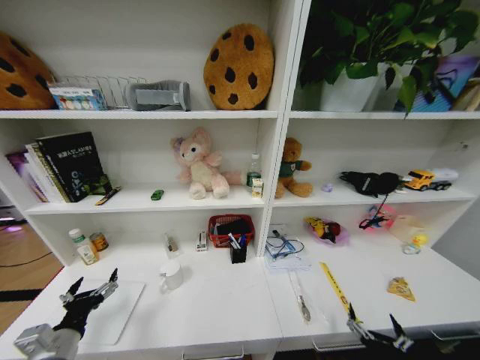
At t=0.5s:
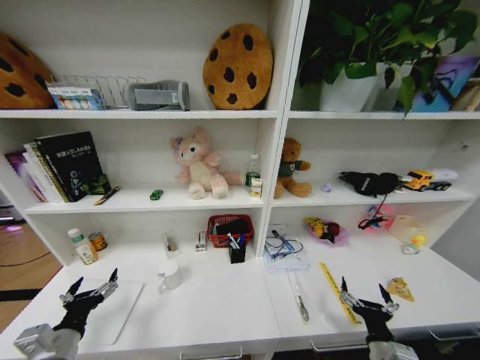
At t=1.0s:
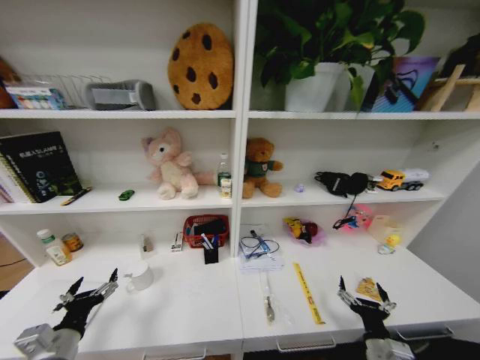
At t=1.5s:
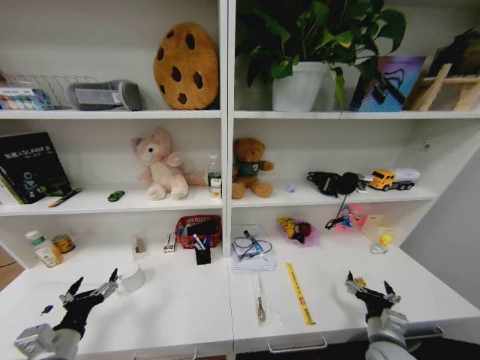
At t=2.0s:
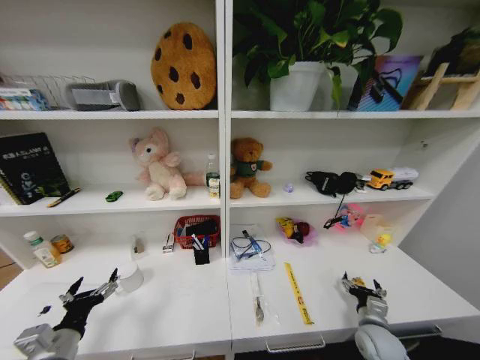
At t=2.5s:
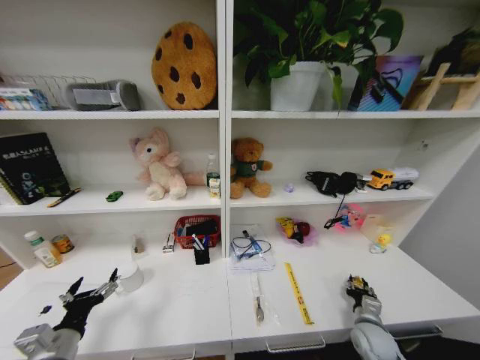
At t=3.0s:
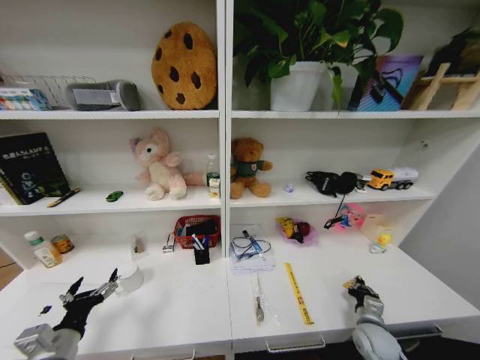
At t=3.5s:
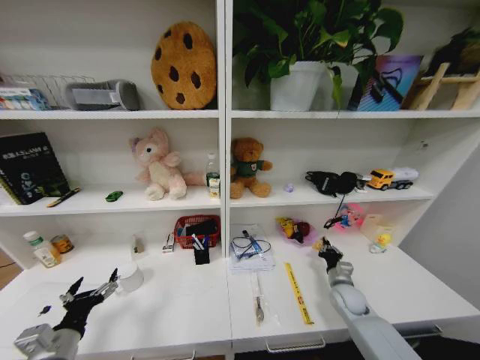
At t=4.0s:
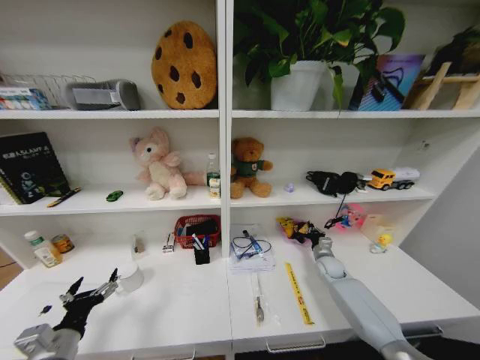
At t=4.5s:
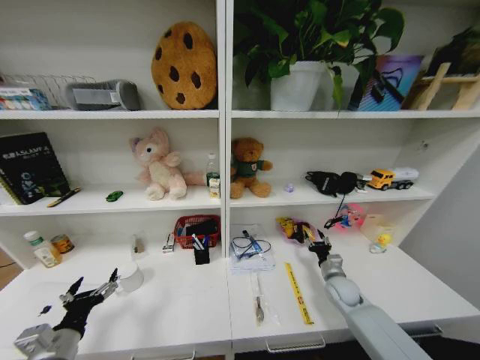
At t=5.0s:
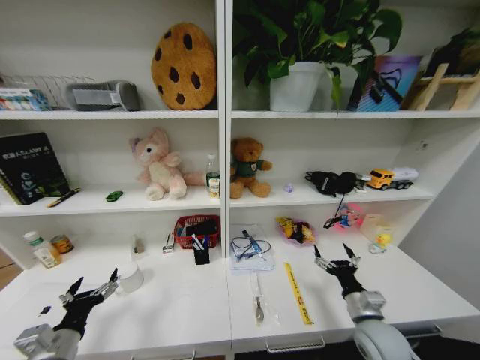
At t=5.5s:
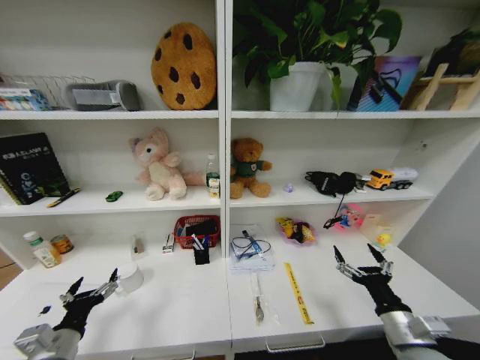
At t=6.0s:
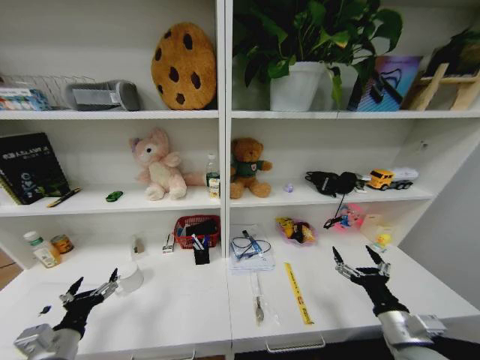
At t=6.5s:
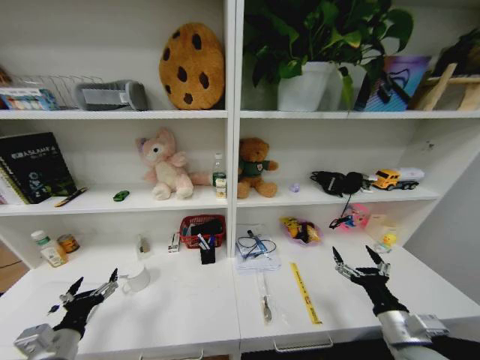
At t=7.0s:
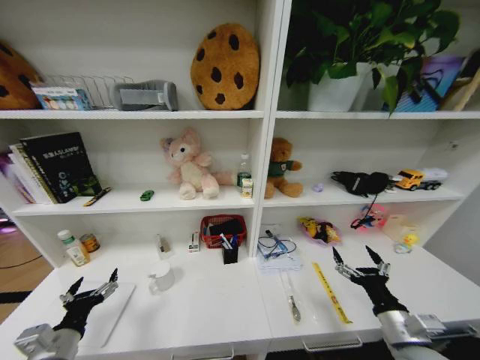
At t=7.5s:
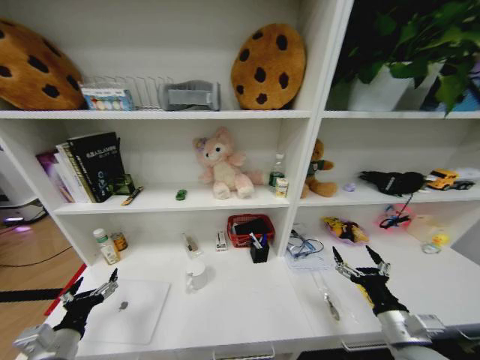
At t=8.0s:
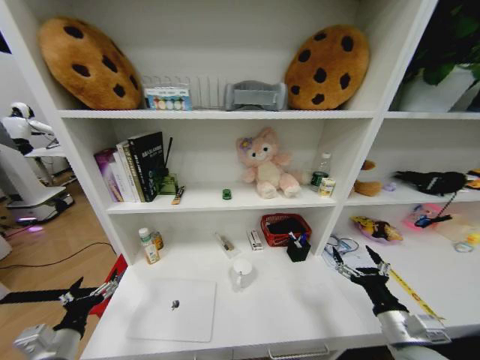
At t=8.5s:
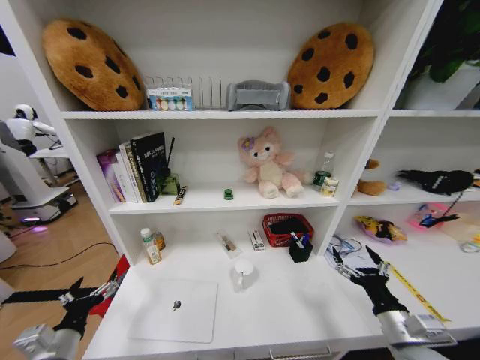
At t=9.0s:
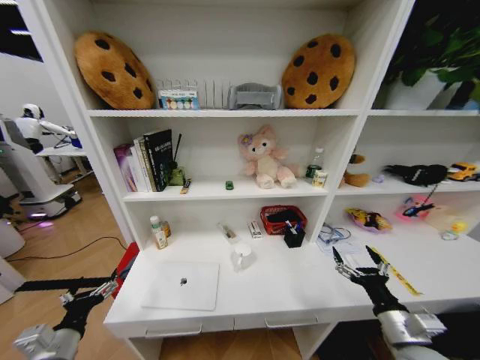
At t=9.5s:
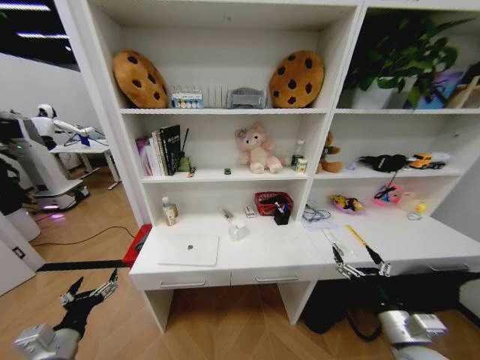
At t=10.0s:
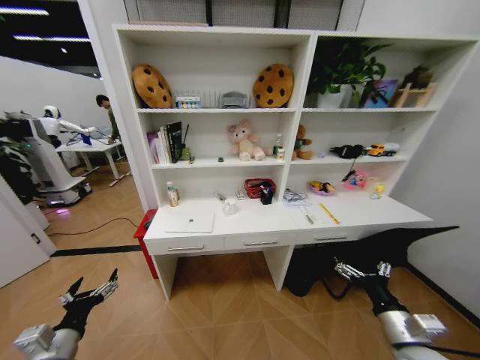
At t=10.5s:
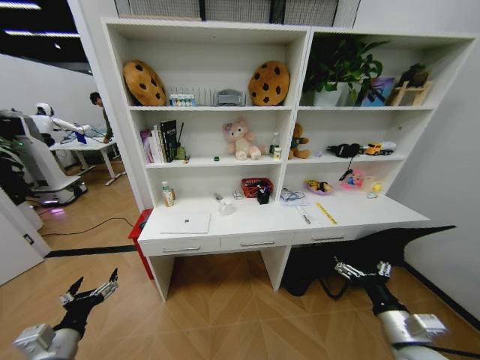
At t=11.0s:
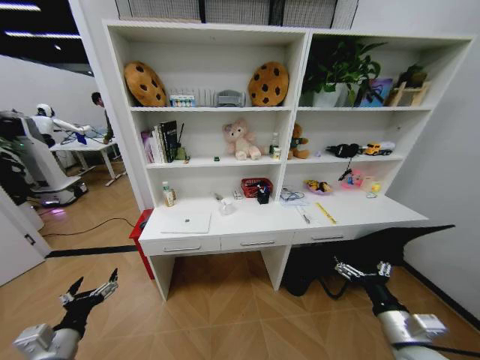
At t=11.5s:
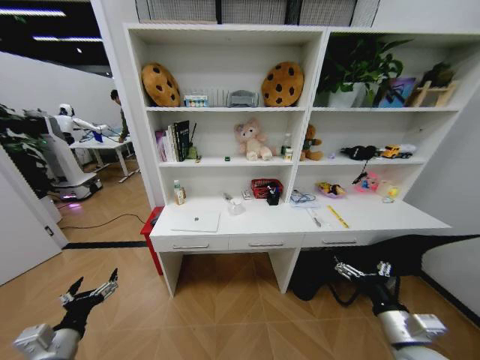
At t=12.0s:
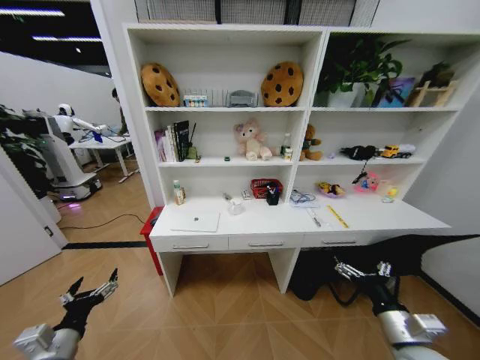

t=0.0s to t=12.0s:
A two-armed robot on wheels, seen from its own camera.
Task of the whole recording: Organize the objects on the table.
t=0.0s to t=2.0s: The right gripper shifts roughly 20 cm forward and to the right.
t=2.0s to t=4.0s: The right gripper moves forward, about 20 cm, and closes up.
t=4.0s to t=6.0s: The right gripper moves backward and upward, some 30 cm, and opens up.
